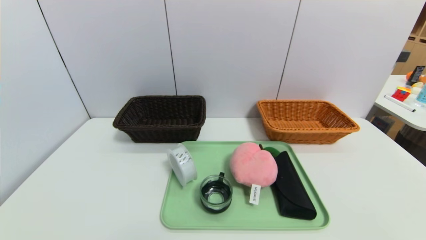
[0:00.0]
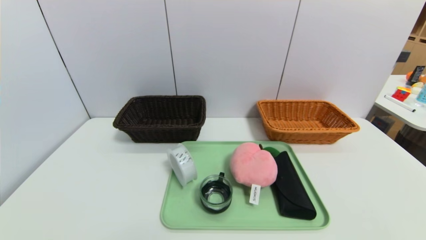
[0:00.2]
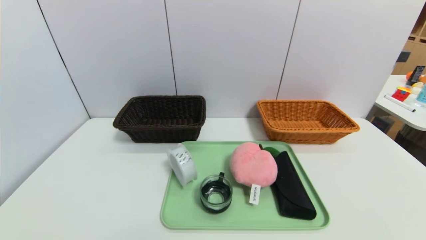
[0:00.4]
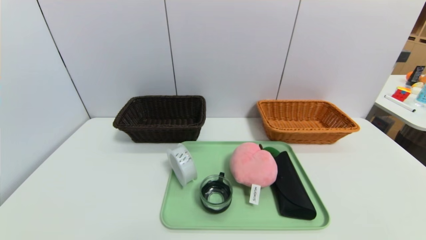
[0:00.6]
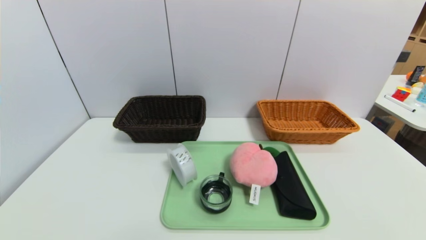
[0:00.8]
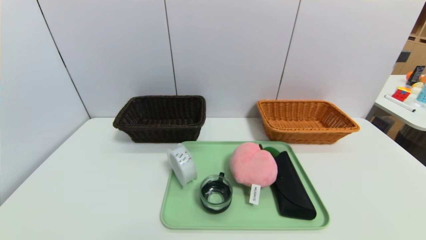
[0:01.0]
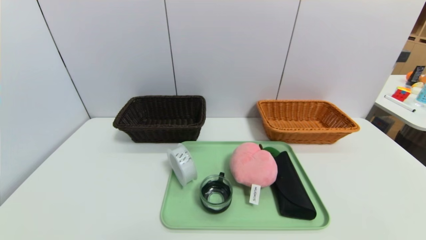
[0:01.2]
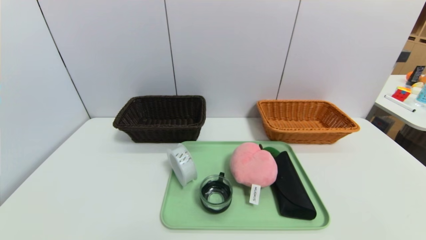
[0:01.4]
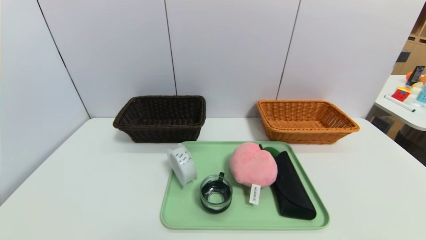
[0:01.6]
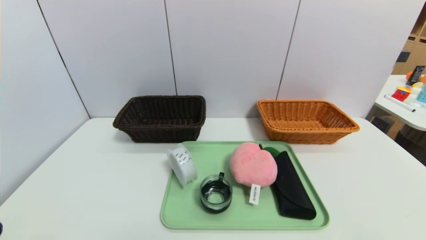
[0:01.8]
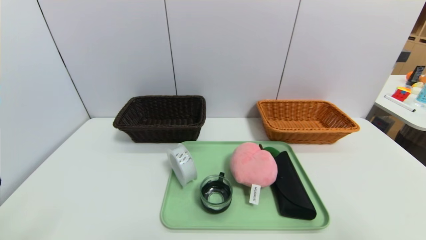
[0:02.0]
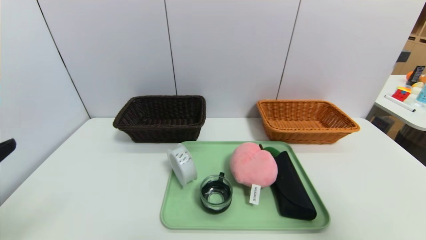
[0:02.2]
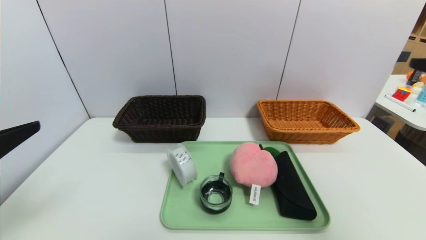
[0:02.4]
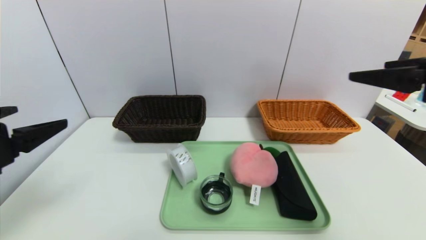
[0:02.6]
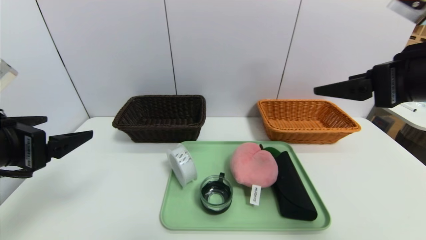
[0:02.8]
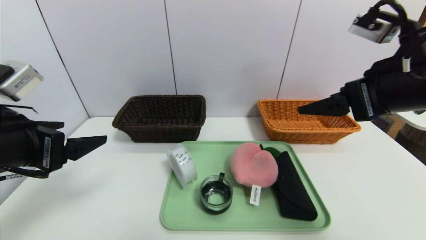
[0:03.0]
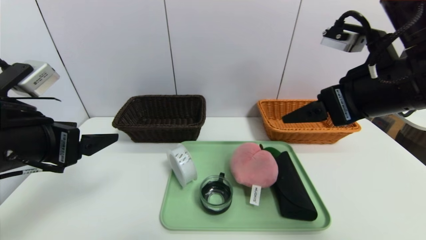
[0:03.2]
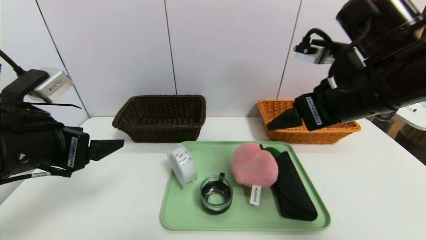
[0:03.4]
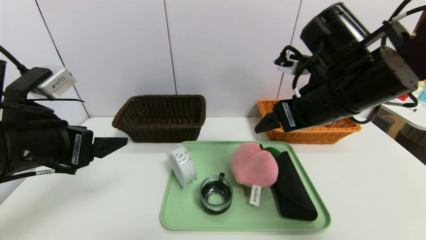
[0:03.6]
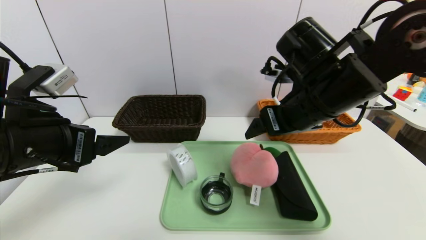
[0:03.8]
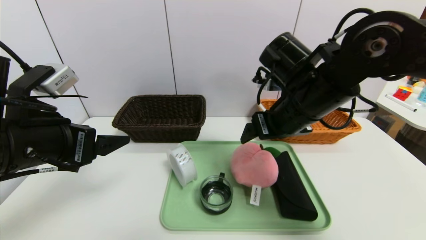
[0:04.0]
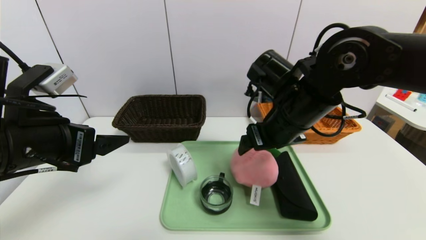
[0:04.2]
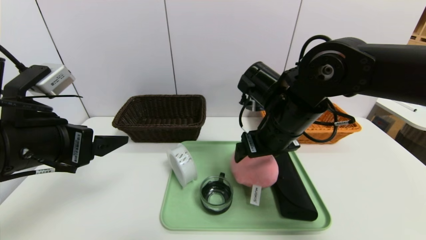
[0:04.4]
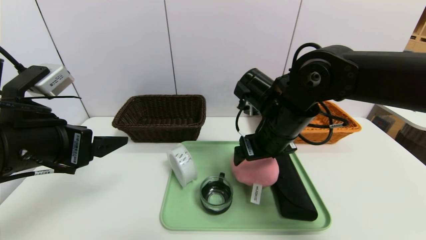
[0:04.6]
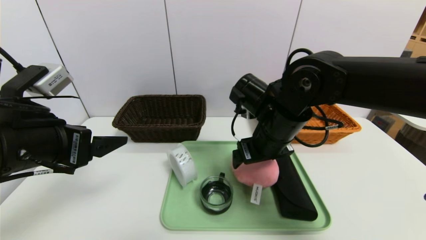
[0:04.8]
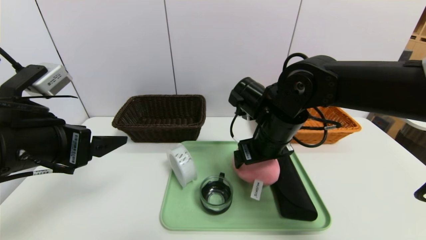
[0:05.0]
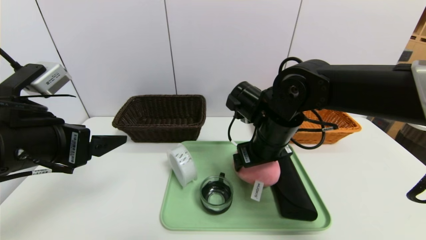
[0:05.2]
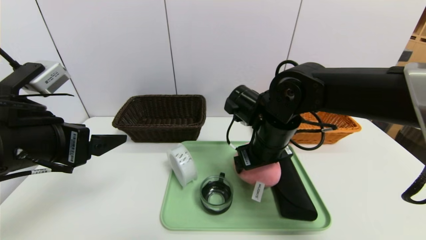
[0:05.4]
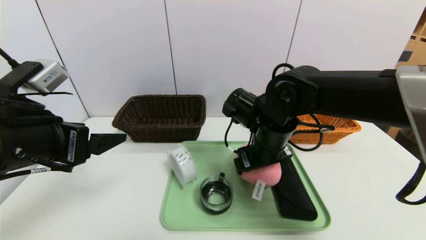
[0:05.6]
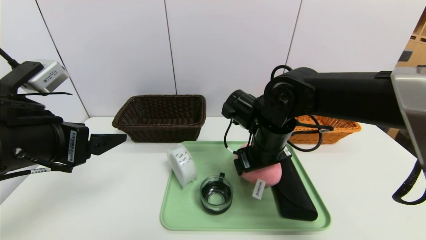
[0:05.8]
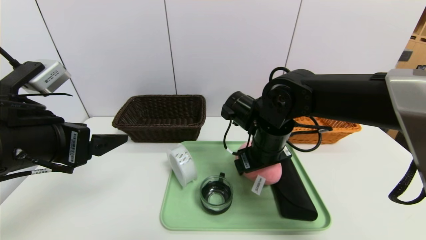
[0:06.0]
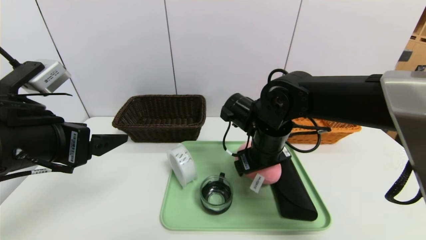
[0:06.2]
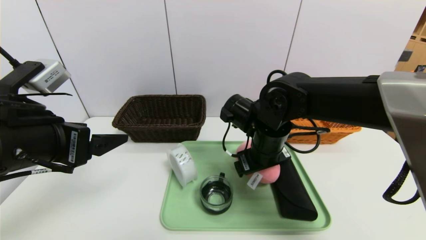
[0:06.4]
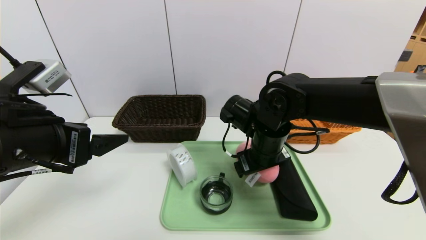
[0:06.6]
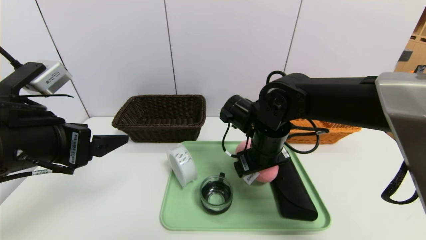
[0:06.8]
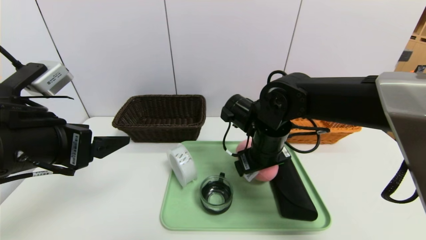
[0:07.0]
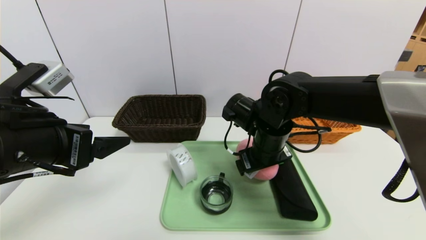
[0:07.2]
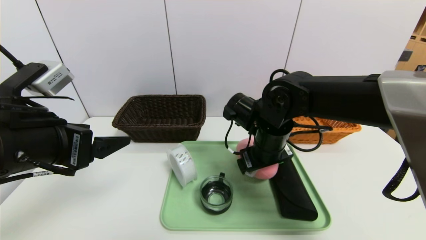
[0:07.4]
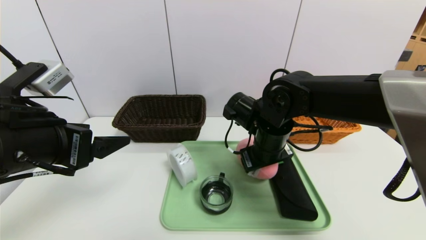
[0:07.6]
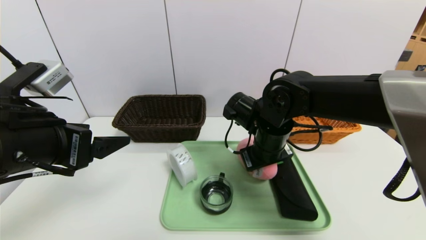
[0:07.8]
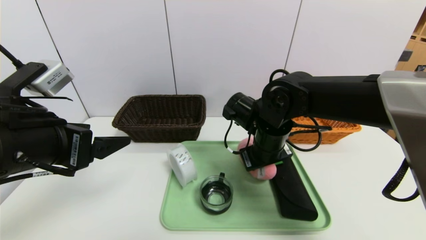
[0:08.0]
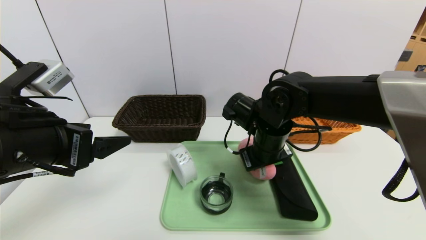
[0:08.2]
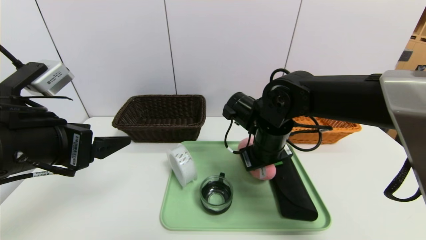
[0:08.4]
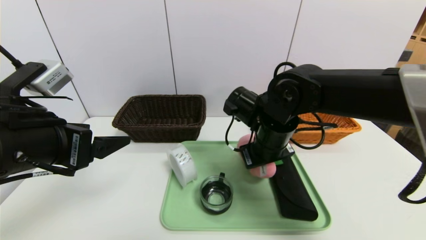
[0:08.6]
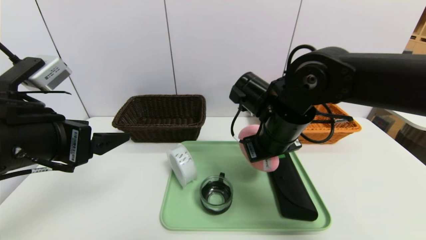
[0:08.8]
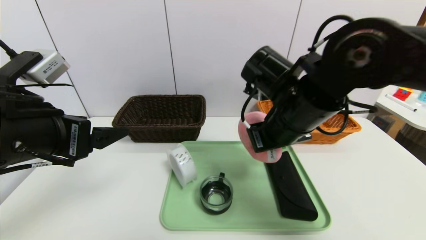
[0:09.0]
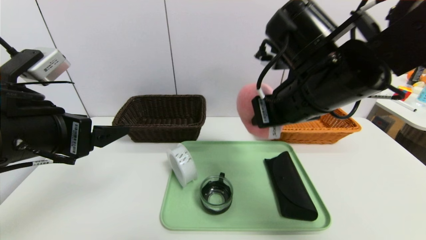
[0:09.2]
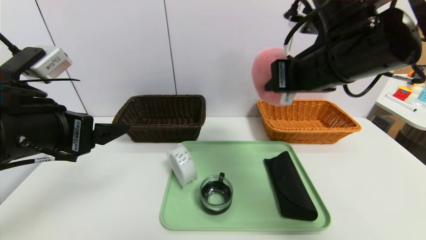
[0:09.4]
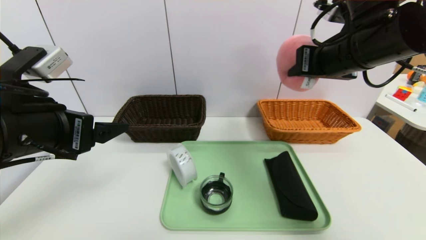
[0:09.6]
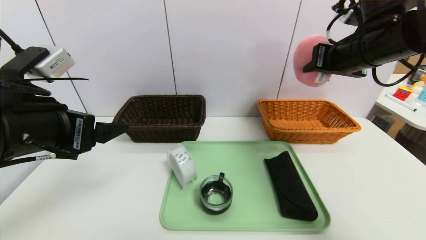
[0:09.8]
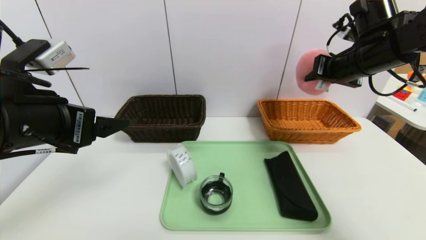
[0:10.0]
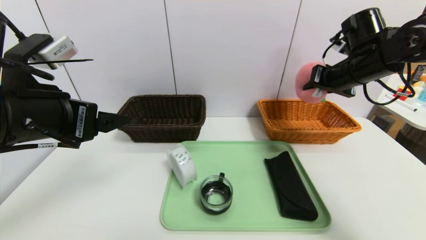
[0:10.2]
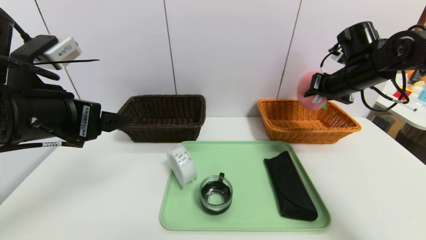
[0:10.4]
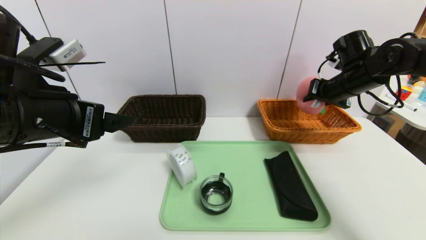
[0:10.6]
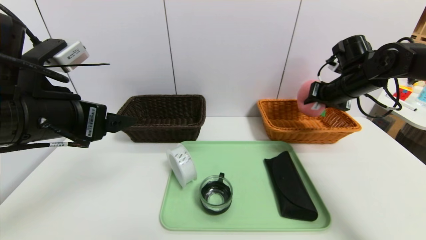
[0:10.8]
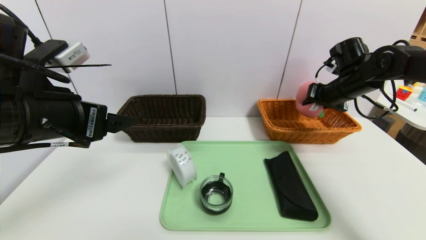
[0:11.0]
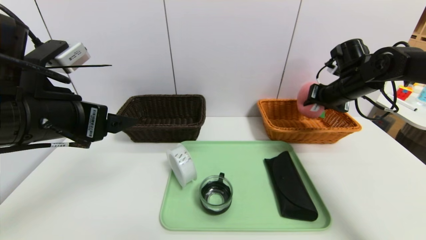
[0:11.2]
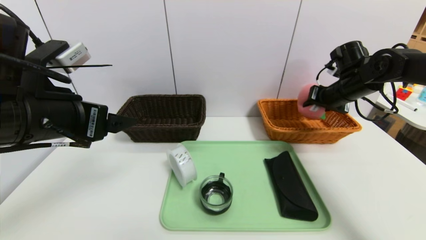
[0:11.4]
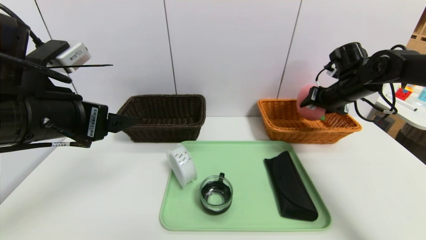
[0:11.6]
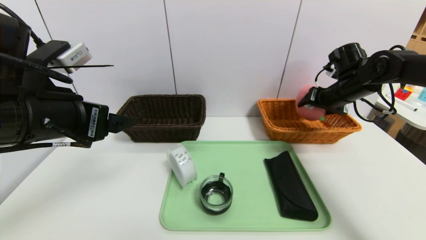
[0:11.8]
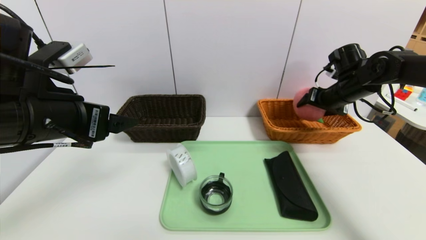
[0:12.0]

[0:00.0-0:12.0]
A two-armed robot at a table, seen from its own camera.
Task of the whole recording: place the food in the right basket with the right gripper, and place the non food items in the left basket with the left gripper.
0:01.6 to 0:03.0: The right gripper moves forward, upward and to the left, about 30 cm. Meanwhile the left gripper moves forward and upward, about 20 cm.
0:03.0 to 0:04.4: The right gripper goes about 15 cm to the left, downward and forward.
0:04.4 to 0:06.0: The right gripper ends up roughly 5 cm from where it was.
0:06.0 to 0:07.6: Neither gripper changes place.
0:07.6 to 0:09.0: The right gripper goes approximately 10 cm upward, and closes.
0:09.0 to 0:10.4: The right gripper goes approximately 25 cm to the right and forward.
0:10.4 to 0:12.0: The right gripper moves about 5 cm, and opens.

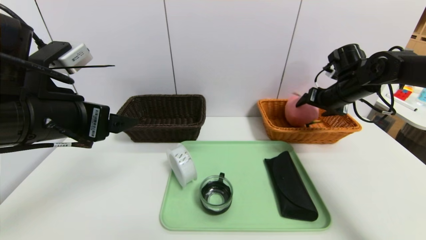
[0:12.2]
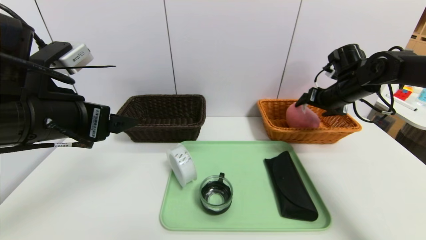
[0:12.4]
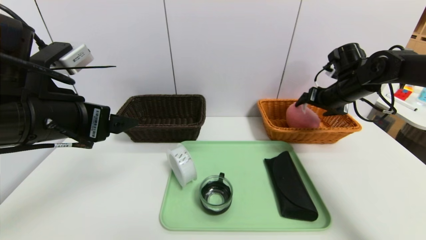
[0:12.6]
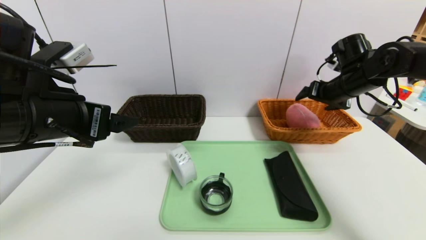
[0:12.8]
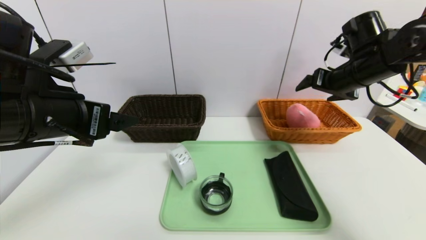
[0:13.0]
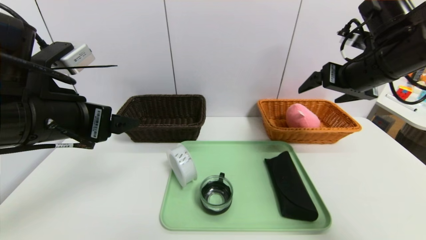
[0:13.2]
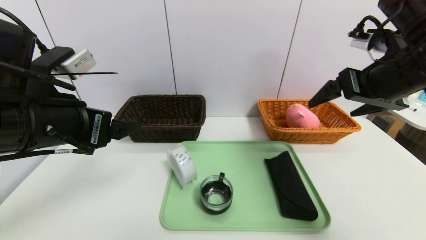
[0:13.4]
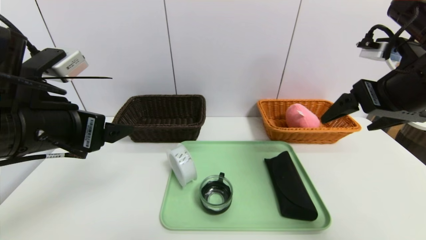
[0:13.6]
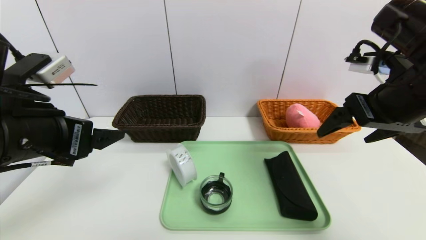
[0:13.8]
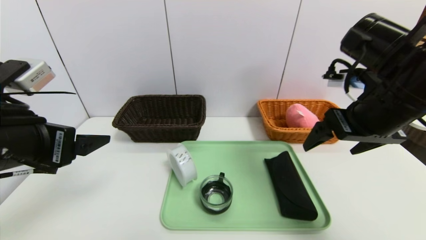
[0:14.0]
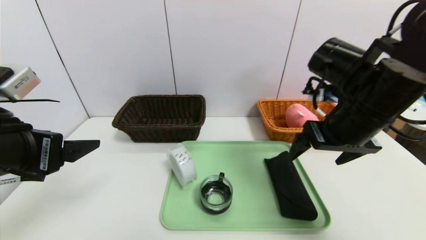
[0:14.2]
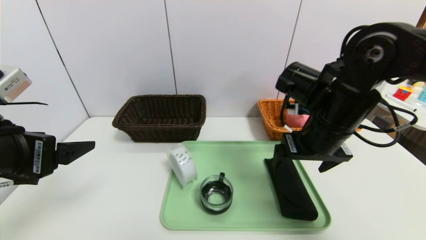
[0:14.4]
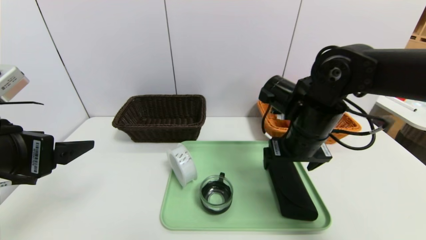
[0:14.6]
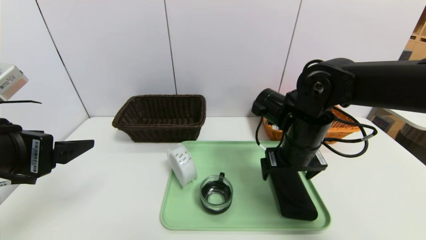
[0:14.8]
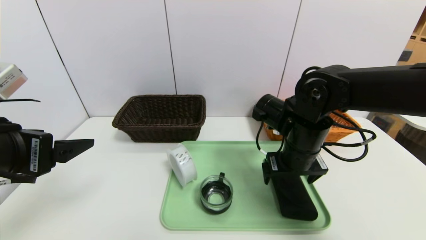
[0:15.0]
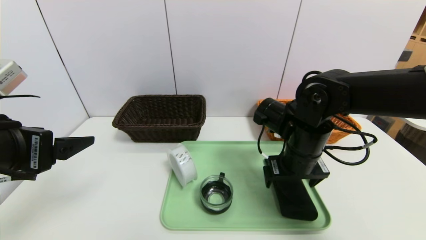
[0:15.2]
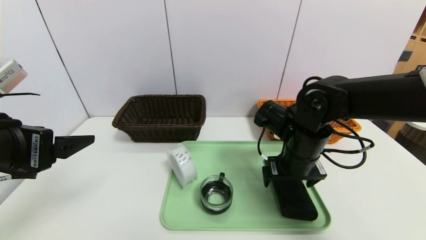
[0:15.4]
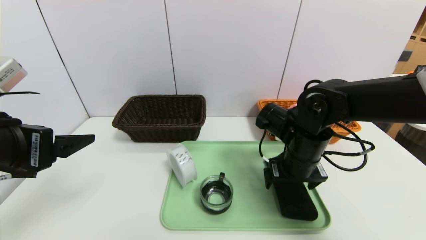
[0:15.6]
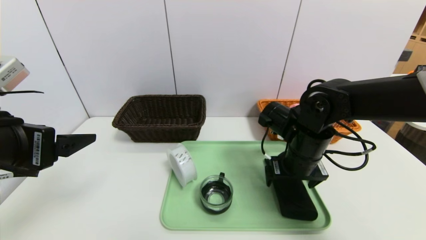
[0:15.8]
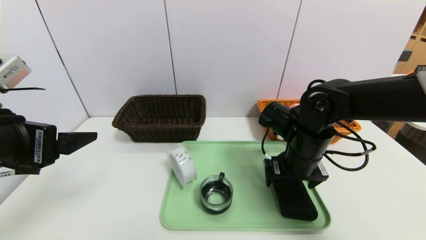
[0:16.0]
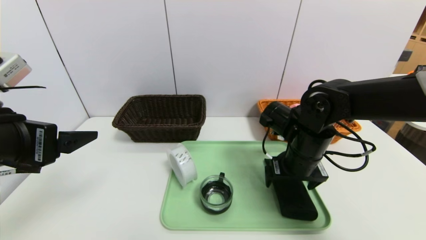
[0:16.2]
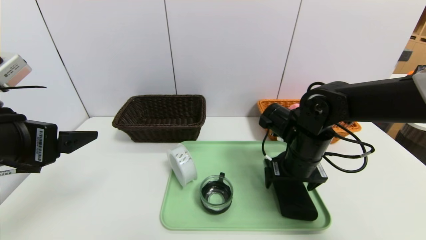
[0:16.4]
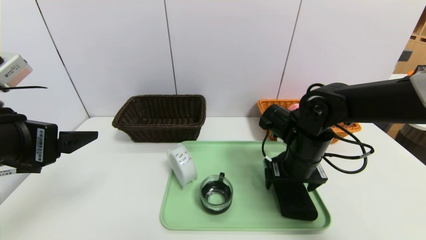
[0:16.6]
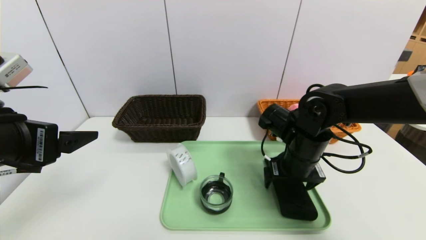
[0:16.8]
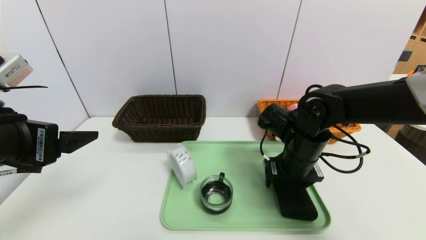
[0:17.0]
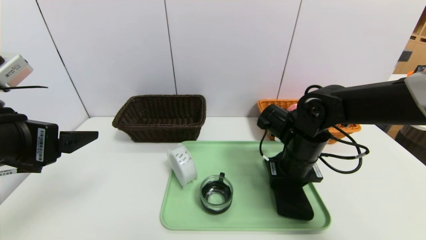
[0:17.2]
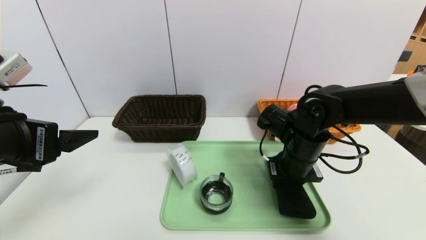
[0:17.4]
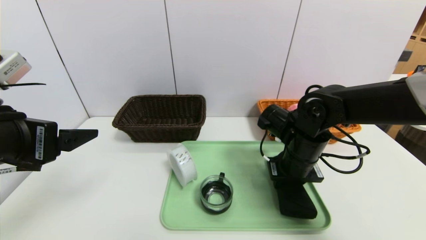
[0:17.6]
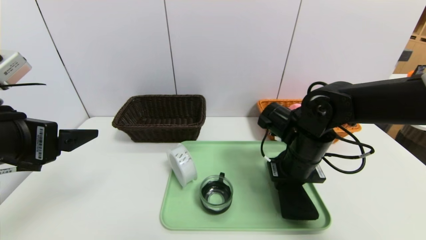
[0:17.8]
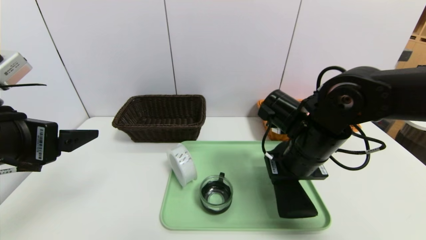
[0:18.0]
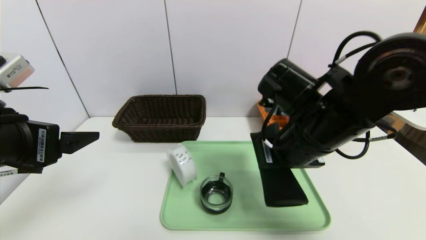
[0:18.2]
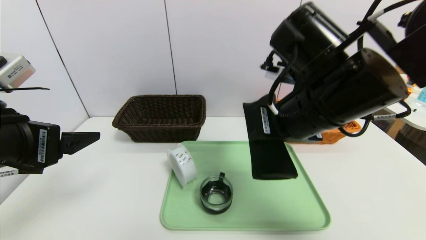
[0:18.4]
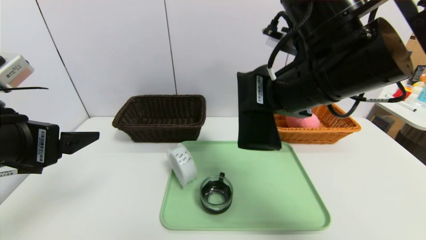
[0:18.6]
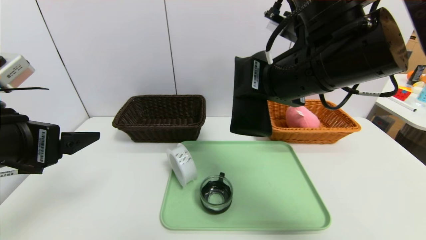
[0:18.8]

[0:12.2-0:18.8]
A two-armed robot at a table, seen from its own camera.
Task of the whole recording: place the food in the right basket with the right gripper, and place the non food items in the left basket with the left gripper.
0:12.2 to 0:13.8: The right gripper goes roughly 20 cm backward and upward.
0:13.8 to 0:15.4: The right gripper is displaced downward and to the left by about 15 cm.
0:15.4 to 0:17.2: The right gripper closes its fingers.
0:17.2 to 0:18.8: The right gripper heads upward, covering roughly 20 cm, and closes up.
